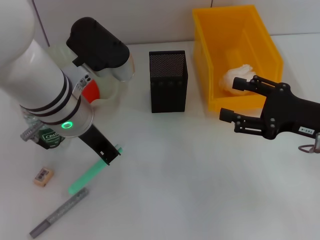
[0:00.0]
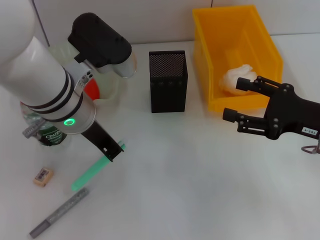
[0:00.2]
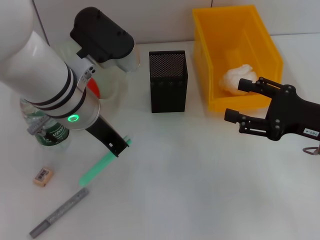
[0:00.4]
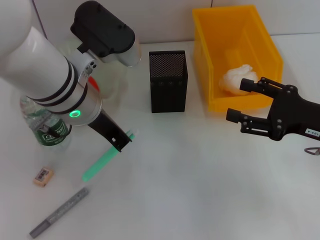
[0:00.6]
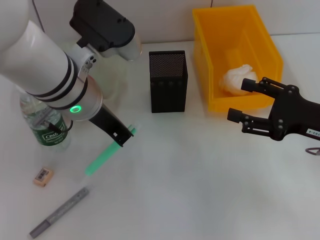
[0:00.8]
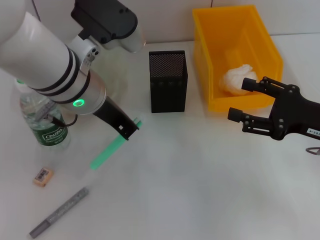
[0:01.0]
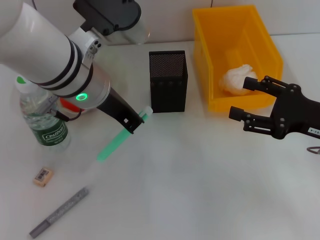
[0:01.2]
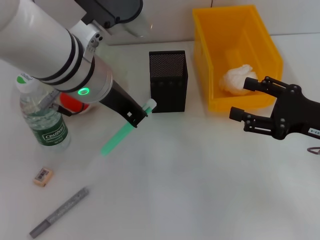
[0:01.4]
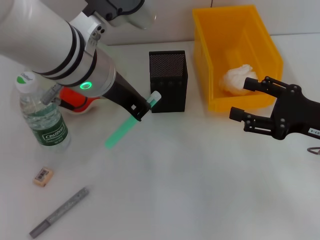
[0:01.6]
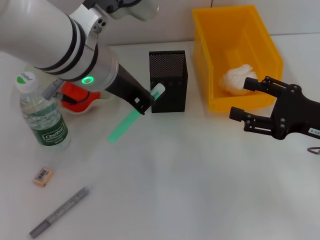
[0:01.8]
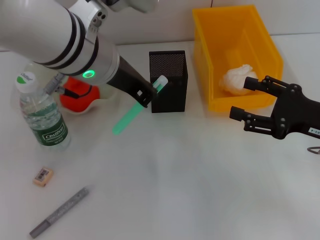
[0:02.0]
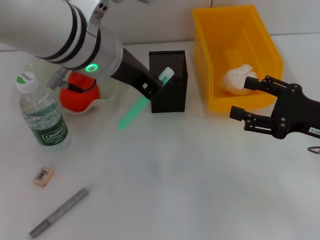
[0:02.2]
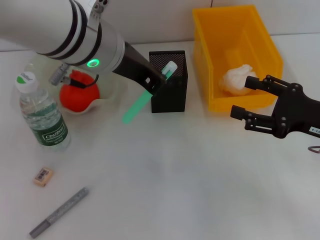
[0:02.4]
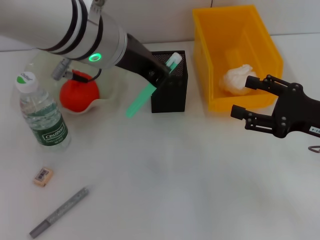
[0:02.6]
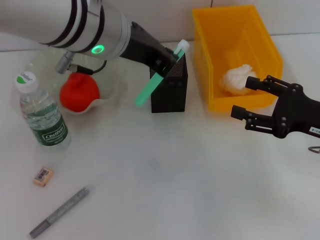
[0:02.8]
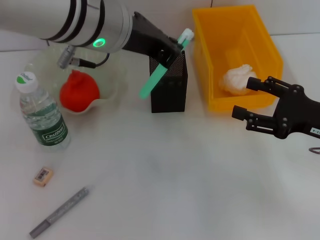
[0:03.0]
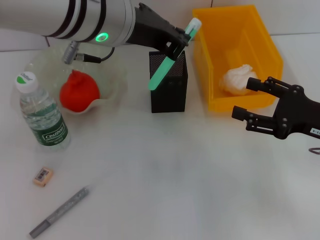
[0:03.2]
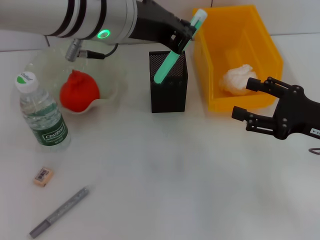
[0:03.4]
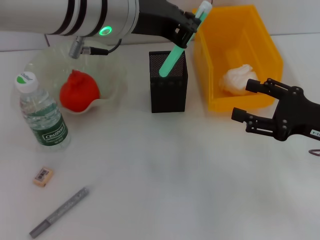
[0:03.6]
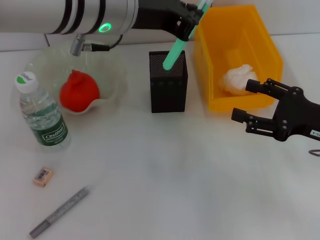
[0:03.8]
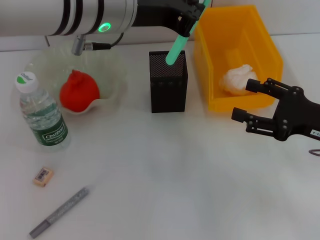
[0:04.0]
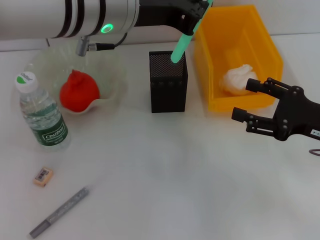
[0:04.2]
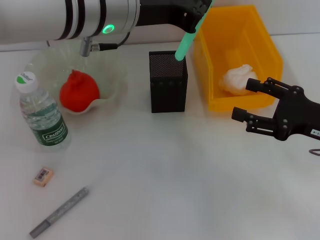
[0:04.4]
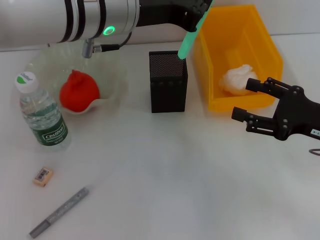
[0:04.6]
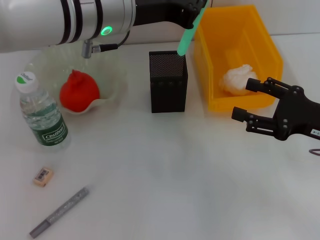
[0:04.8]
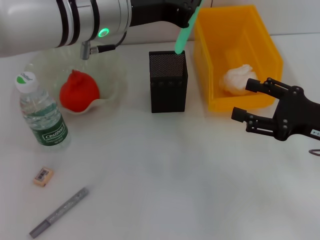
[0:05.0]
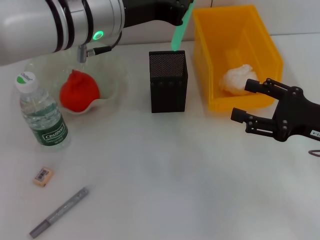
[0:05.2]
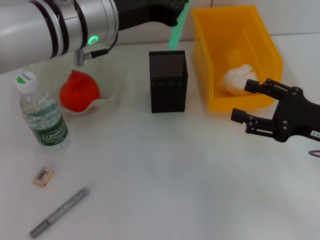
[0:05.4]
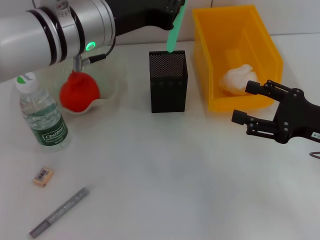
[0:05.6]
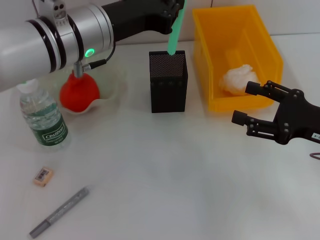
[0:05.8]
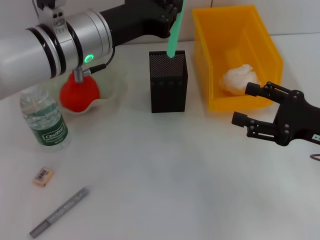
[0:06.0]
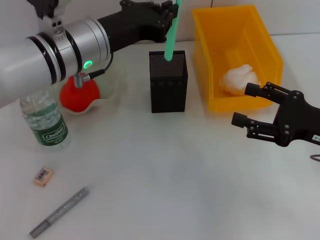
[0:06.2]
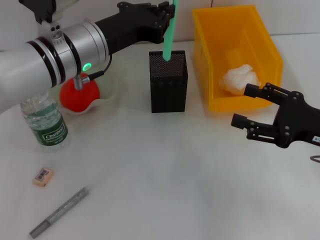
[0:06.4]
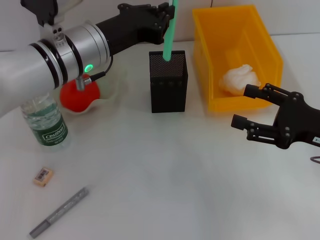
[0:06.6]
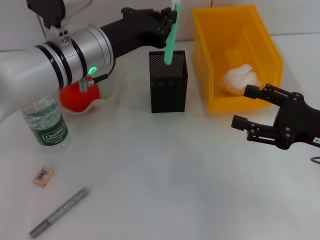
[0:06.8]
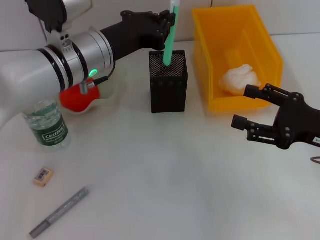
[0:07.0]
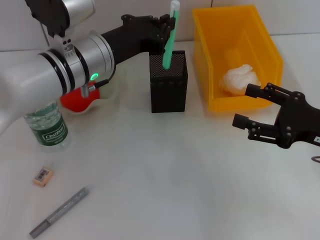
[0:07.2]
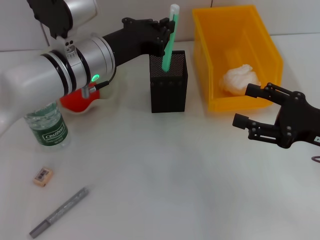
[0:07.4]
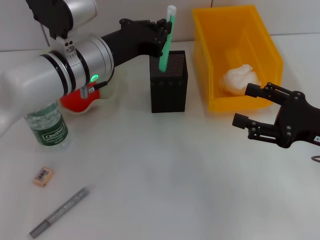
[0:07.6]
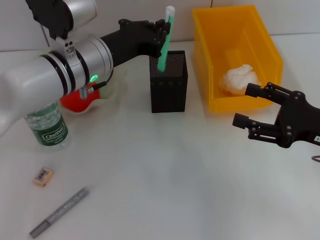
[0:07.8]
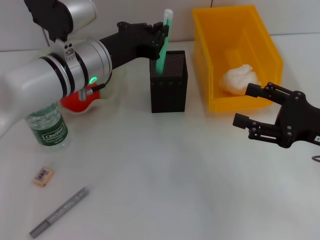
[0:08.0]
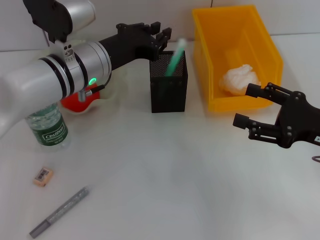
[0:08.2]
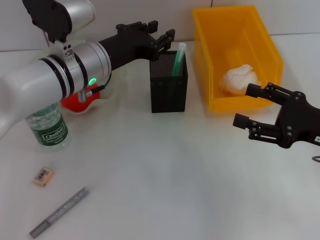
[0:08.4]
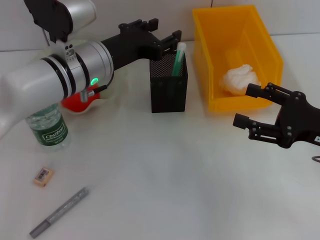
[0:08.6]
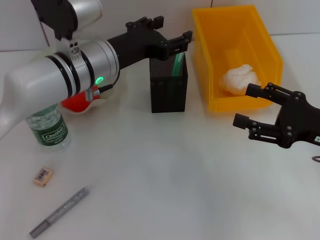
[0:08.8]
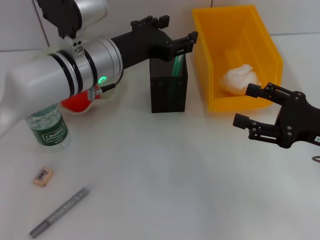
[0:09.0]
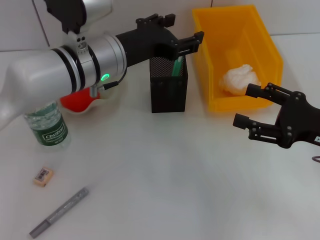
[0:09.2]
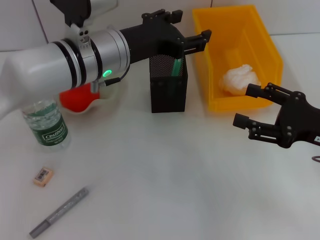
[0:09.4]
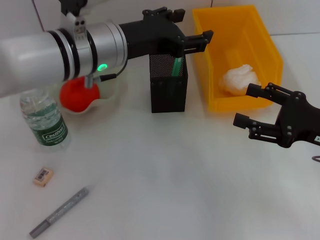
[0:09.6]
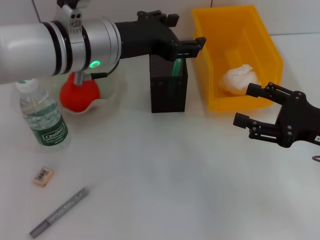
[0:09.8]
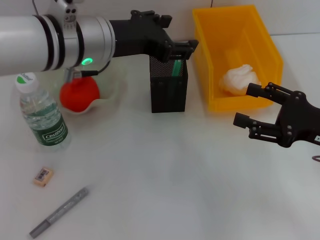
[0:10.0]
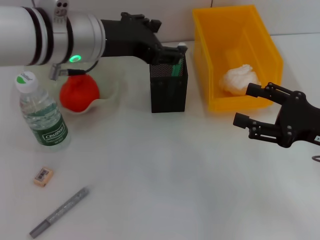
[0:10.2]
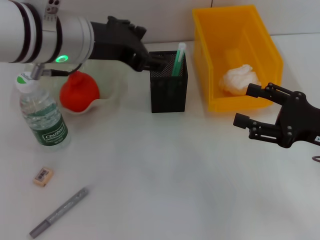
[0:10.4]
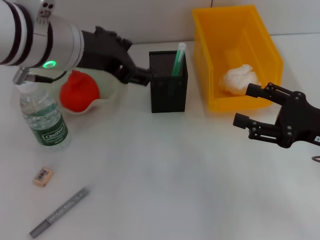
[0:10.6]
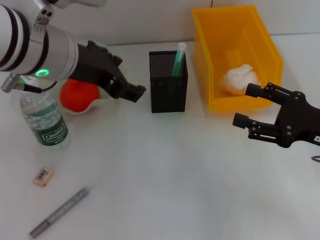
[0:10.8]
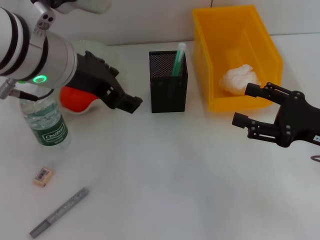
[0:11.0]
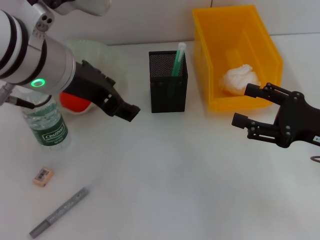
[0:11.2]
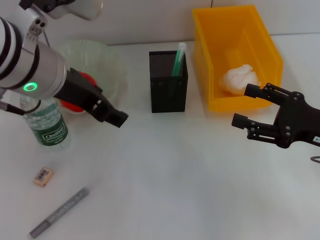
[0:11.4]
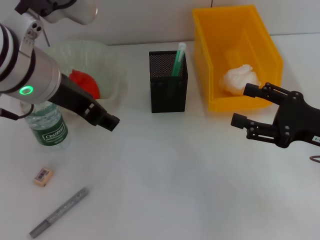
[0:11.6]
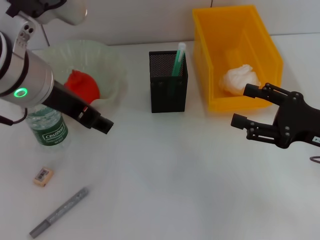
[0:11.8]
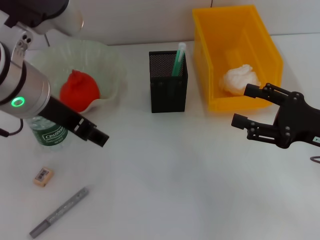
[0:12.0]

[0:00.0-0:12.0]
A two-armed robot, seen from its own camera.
Step, 0:00.0 to 0:09.0: Place the blue utility knife into the pen holder with the left hand.
0:00.0 to 0:01.6: The left gripper moves upward, approximately 5 cm.
0:01.6 to 0:03.0: The grippers stay close to where they were, moving slightly.
0:04.4 to 0:06.0: The left gripper moves downward, some 5 cm.
0:06.0 to 0:07.6: The left gripper ends up some 5 cm from where it was.
0:07.6 to 0:09.0: The left gripper opens its fingers.
0:09.0 to 0:10.4: The left gripper is displaced upward by roughly 10 cm.
0:10.4 to 0:12.0: The left gripper moves approximately 5 cm.

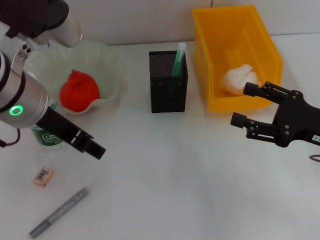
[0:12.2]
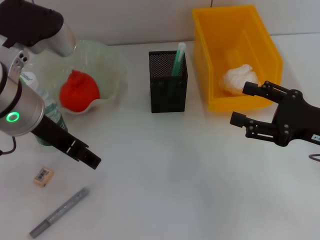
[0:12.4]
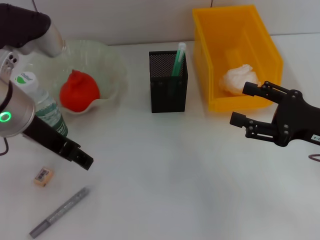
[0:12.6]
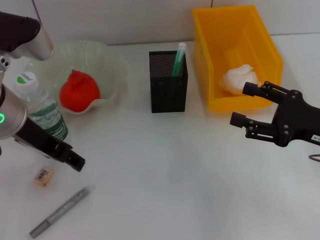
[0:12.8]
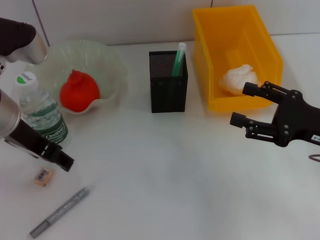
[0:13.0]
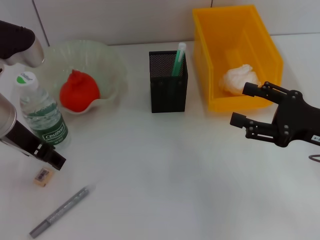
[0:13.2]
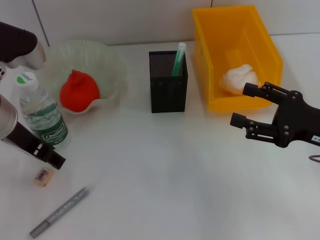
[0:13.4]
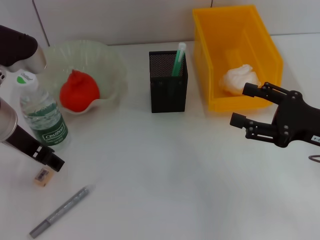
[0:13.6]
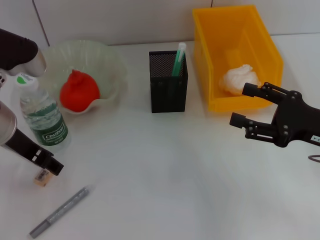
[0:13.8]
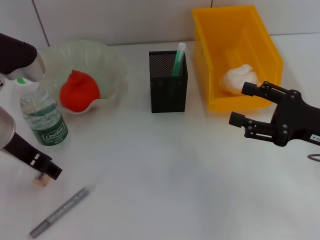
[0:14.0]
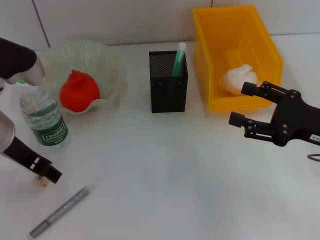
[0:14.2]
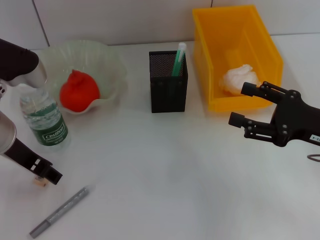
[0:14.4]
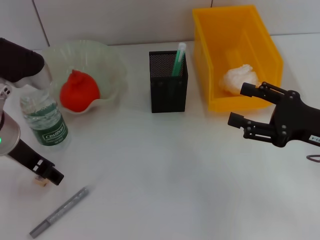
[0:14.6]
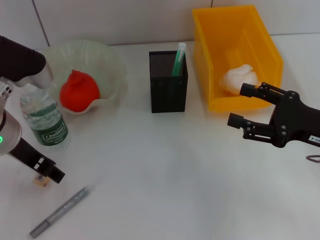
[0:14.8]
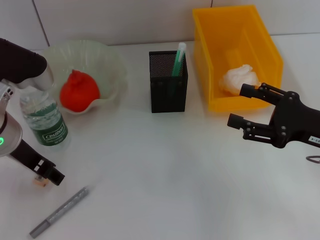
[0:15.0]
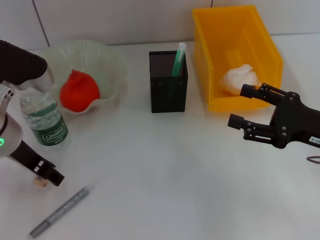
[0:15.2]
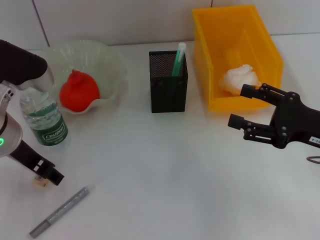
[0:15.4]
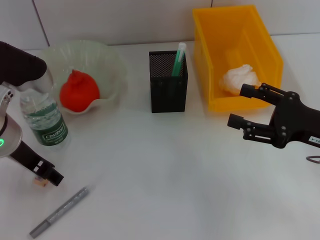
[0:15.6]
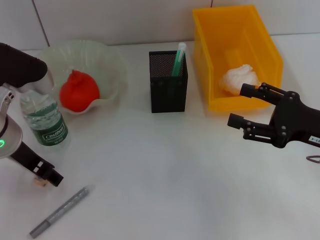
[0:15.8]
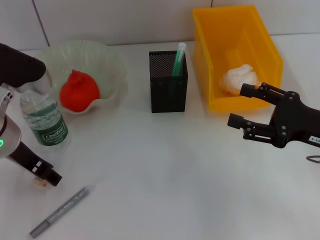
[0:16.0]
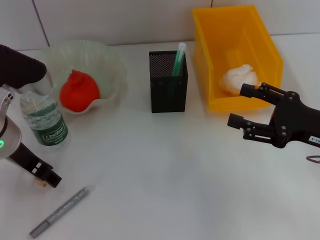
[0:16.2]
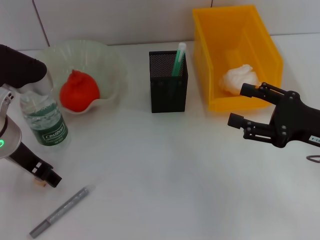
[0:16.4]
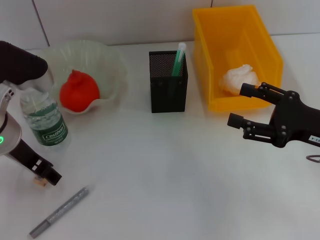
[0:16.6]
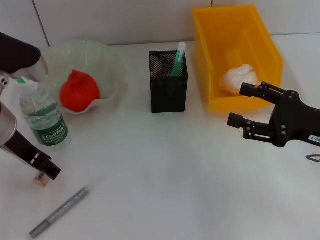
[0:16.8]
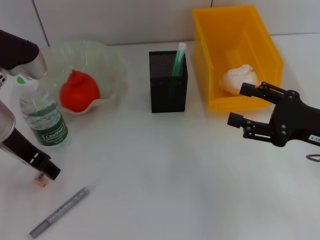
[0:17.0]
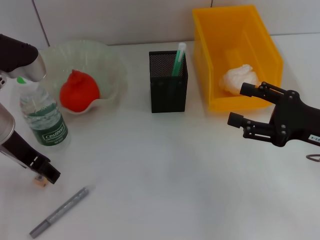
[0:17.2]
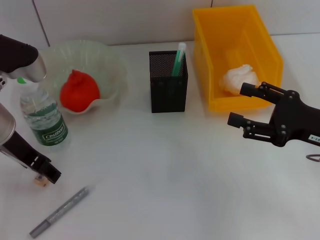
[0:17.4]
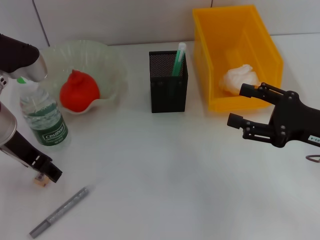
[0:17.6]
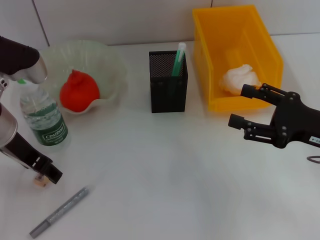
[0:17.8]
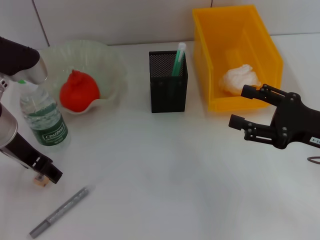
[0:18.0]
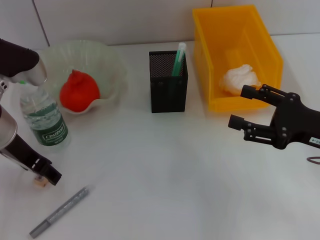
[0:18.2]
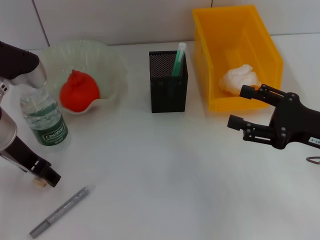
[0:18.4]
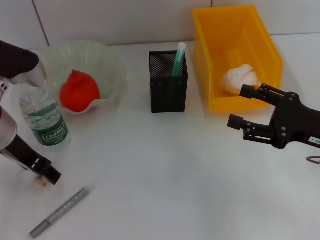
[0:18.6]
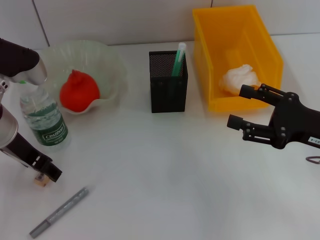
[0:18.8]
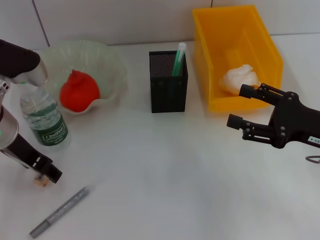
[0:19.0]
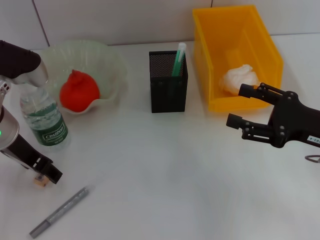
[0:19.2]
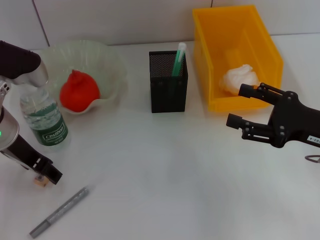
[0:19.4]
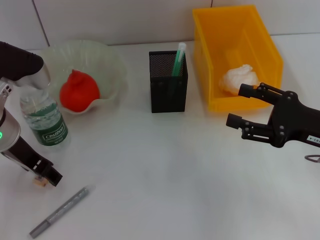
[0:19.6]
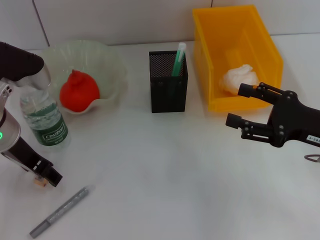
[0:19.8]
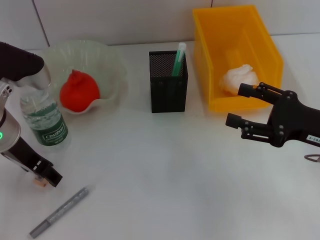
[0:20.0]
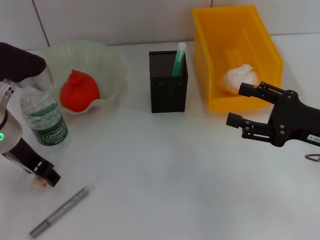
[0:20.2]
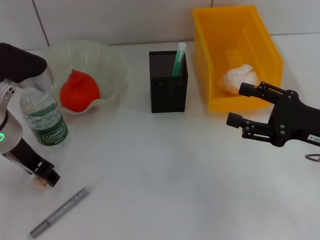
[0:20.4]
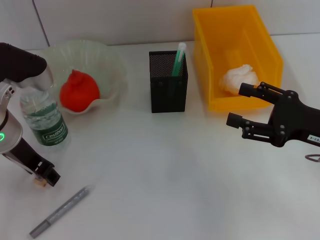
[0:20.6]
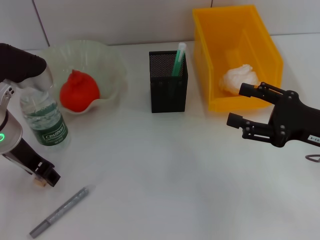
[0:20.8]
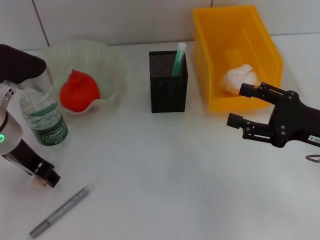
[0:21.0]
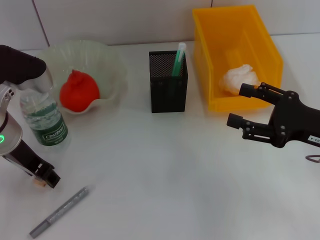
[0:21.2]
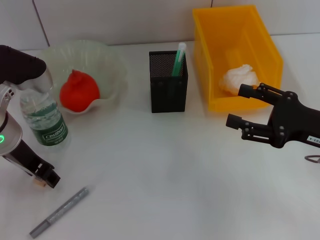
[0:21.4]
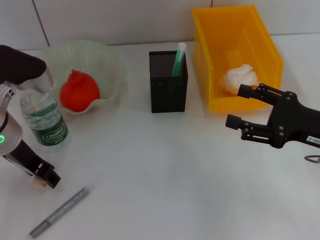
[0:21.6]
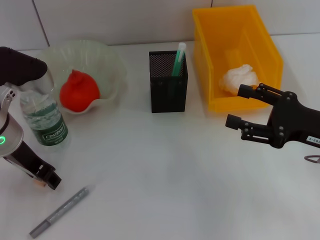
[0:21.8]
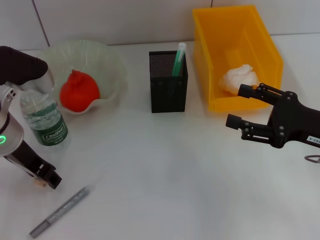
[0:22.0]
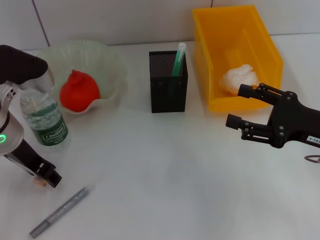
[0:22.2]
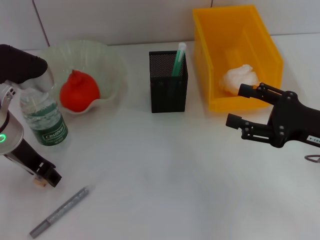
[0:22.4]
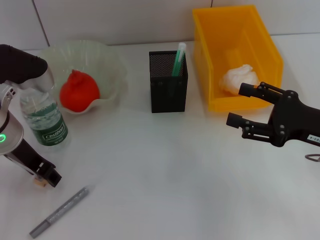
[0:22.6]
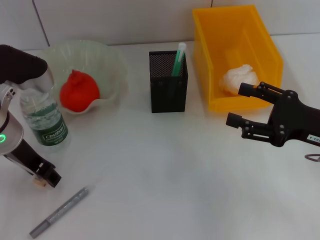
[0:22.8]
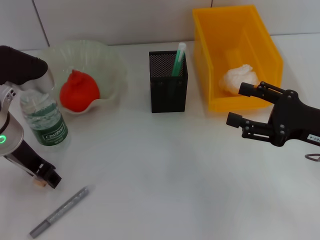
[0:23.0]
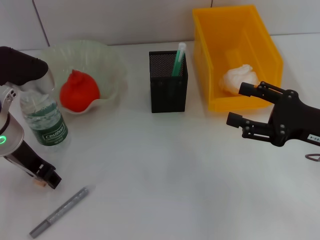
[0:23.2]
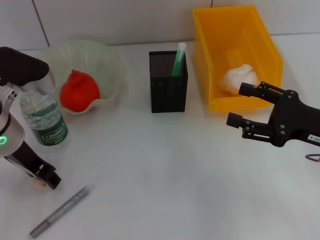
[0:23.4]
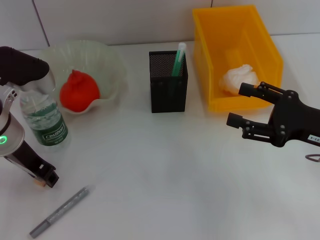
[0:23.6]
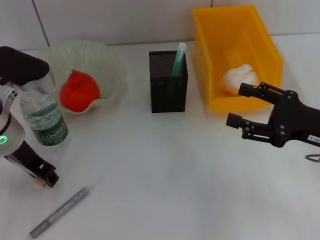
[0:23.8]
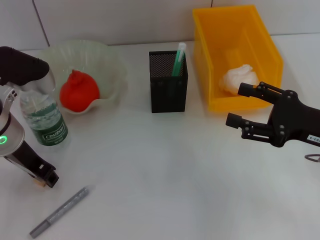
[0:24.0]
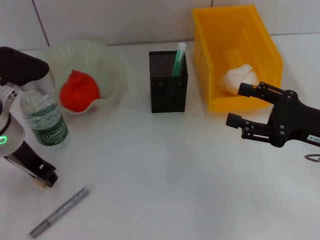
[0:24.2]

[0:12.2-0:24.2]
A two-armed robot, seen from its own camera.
0:12.2 to 0:13.8: The left gripper moves downward, approximately 5 cm.
0:13.8 to 0:15.2: The grippers move only a little.
0:15.2 to 0:16.6: The two grippers keep their place.
0:16.6 to 0:18.2: There are only small adjustments of the grippers.
0:18.2 to 0:22.6: Neither gripper changes place.
0:22.6 to 0:24.2: Both grippers stay about where they are.
